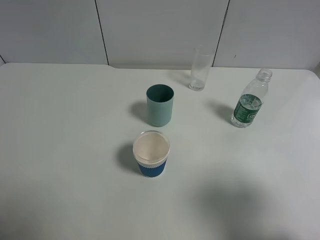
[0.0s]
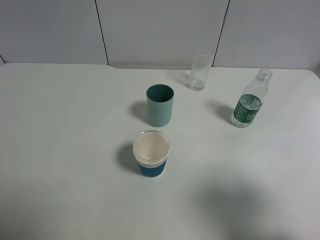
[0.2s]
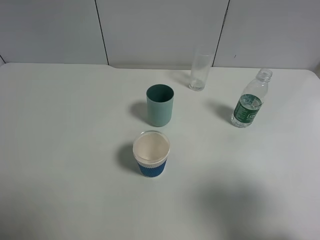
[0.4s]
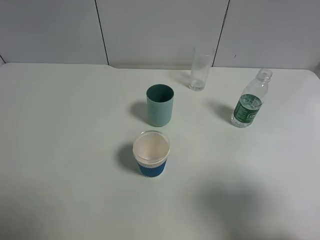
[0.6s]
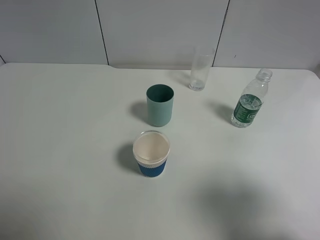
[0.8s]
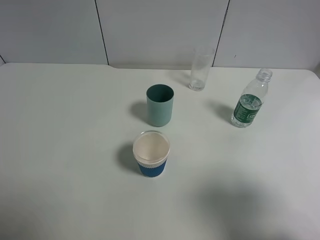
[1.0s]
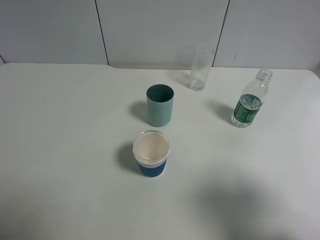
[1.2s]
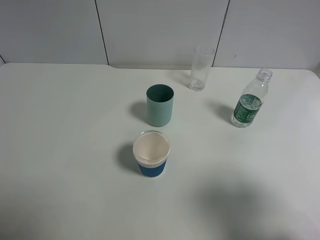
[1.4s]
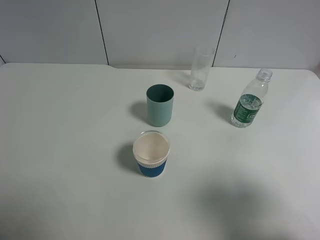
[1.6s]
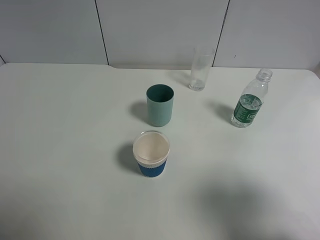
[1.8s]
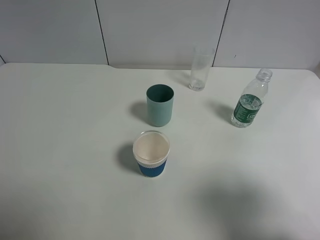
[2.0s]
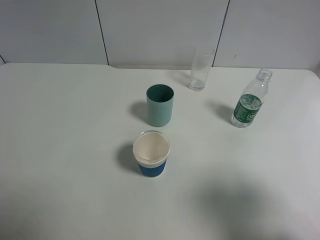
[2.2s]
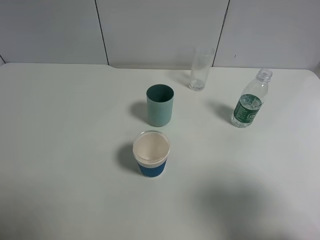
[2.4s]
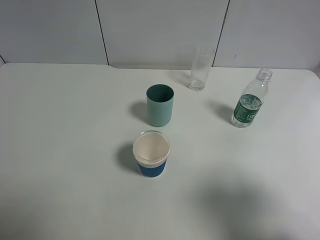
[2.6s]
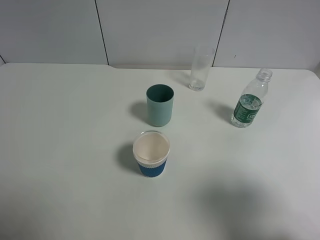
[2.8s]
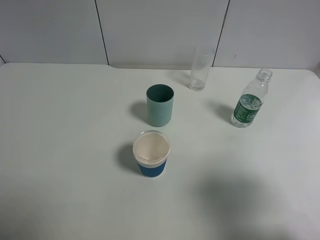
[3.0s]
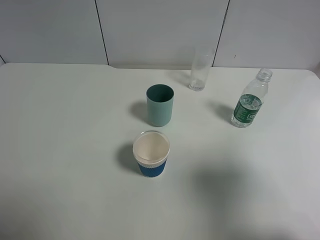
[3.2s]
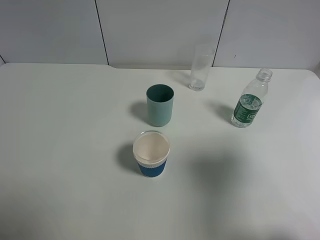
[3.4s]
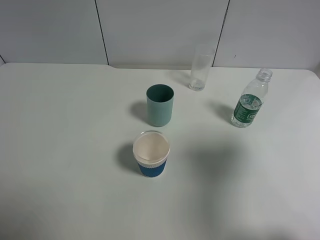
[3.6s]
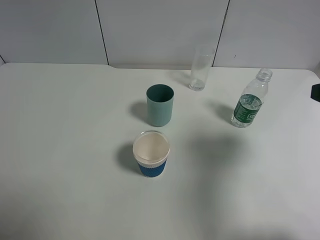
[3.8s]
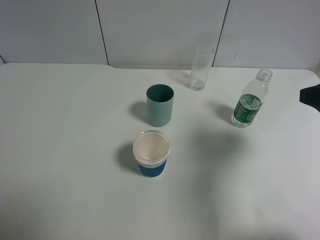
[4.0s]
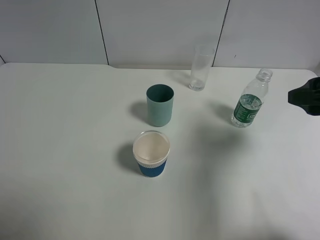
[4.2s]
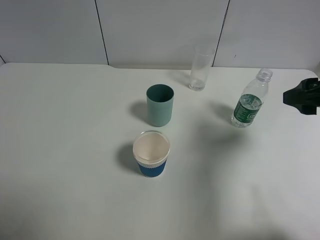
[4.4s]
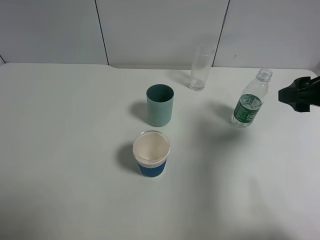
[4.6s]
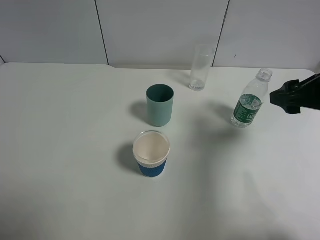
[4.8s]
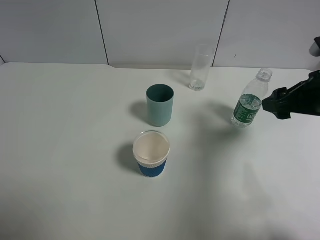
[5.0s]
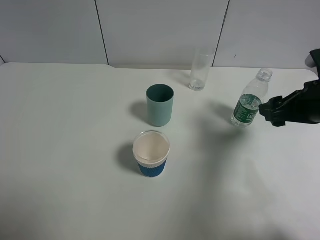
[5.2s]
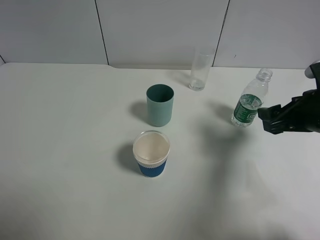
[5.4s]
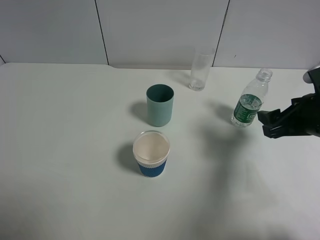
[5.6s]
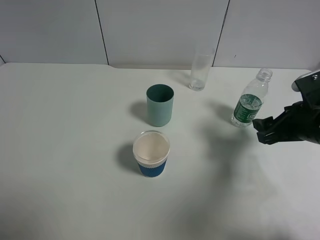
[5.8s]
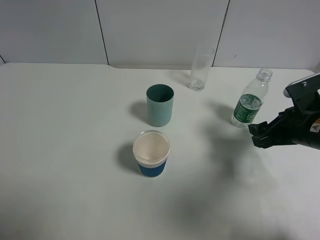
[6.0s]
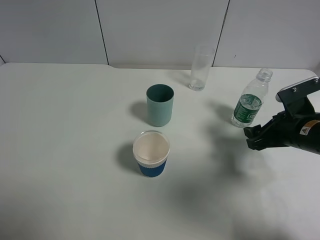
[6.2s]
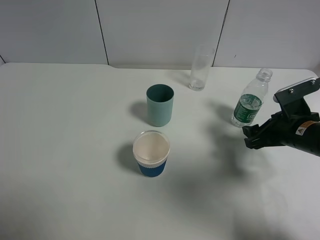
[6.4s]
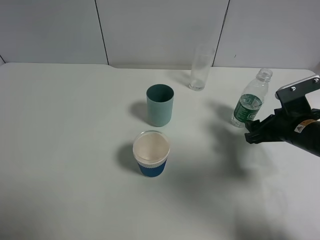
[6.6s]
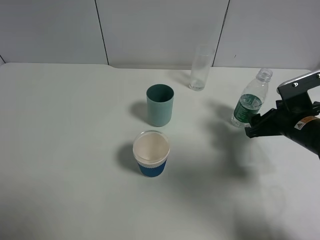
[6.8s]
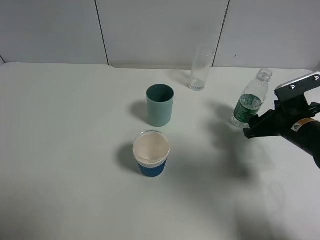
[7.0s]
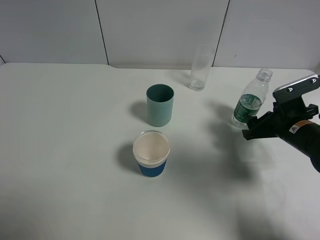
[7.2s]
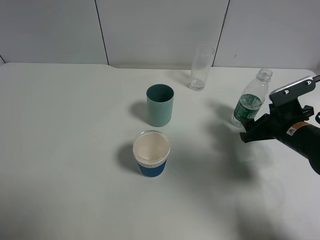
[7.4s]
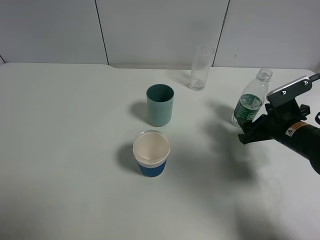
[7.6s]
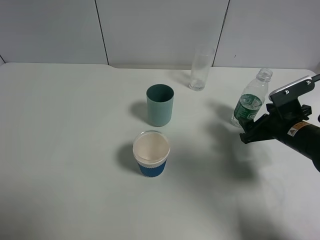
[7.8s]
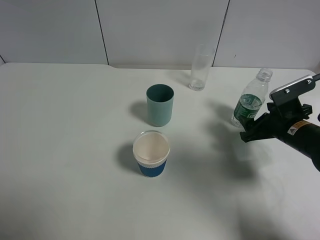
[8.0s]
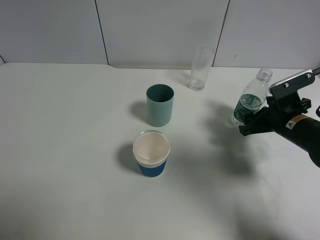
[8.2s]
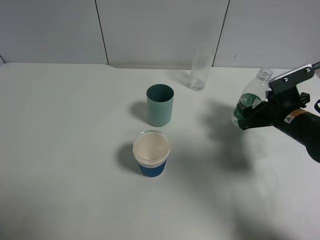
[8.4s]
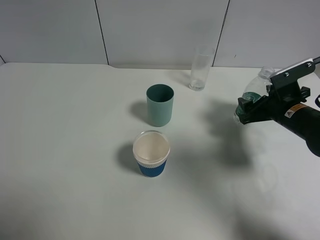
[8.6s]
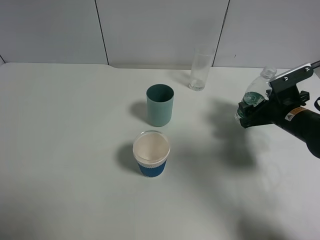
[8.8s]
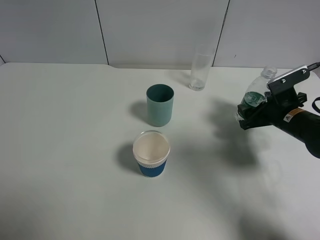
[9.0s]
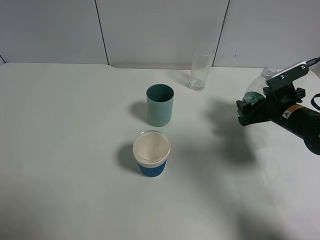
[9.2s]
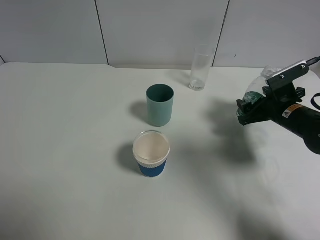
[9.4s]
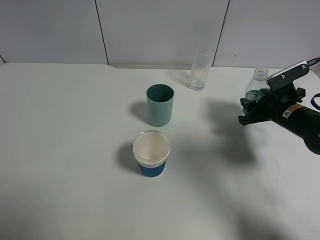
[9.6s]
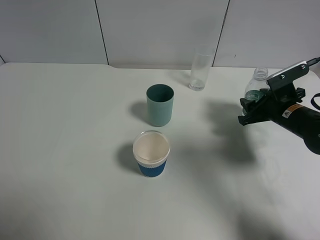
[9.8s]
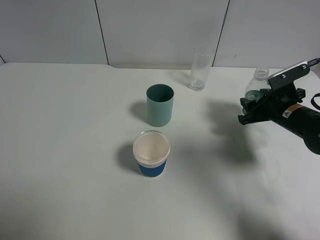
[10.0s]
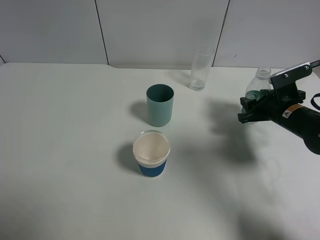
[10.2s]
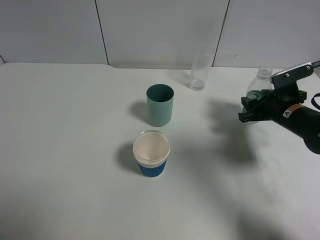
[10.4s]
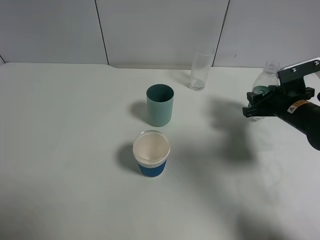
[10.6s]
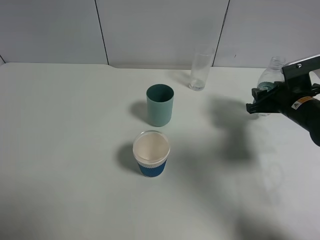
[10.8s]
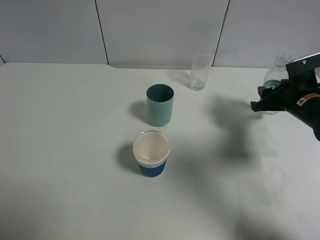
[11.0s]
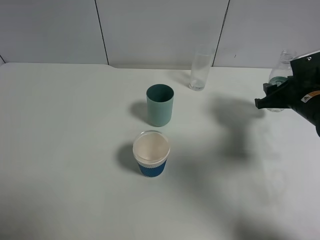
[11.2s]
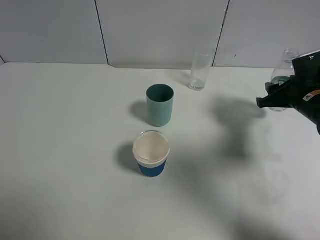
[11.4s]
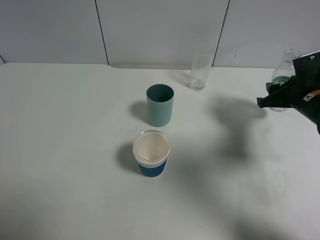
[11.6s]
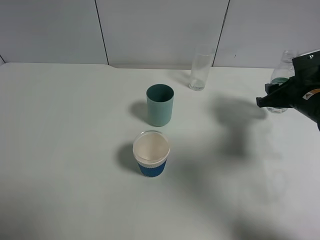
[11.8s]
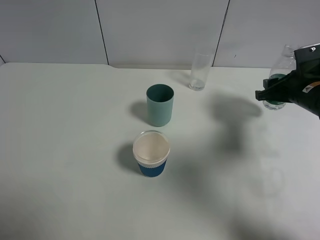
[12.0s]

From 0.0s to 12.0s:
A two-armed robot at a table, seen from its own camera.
Task of the whole recording: use a gripper to hold the bottle of the drink and pour it into a random cup.
Step, from 0.0s to 10.0s: Grasp the mineral water bottle with the right gripper.
From 0.0s to 1.6s: Neither gripper changes place.
From 3.0s to 4.4s: The right gripper is displaced forward by about 15 cm.
From 4.4s to 6.0s: The right gripper goes roughly 10 cm downward.
From 6.0s to 7.6s: The right gripper moves about 5 cm.
From 7.6s to 9.0s: The grippers move only a little.
From 9.0s to 10.4s: The right gripper closes its fingers.
From 10.4s to 12.0s: The right gripper heads upward, covering approximately 5 cm.

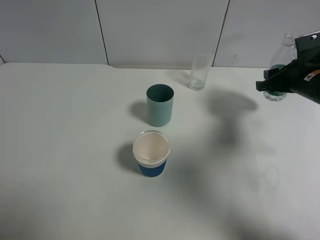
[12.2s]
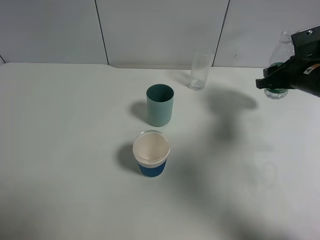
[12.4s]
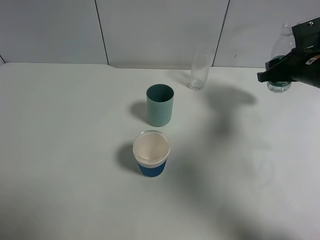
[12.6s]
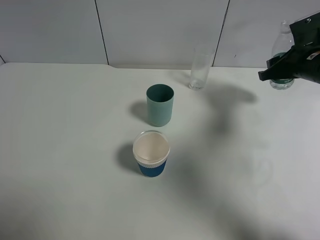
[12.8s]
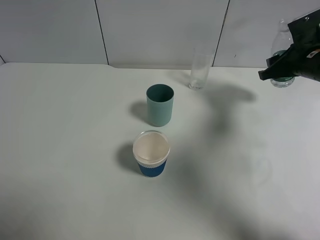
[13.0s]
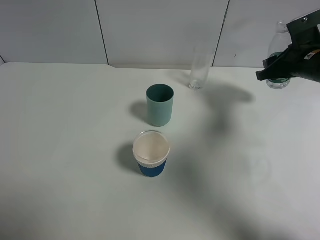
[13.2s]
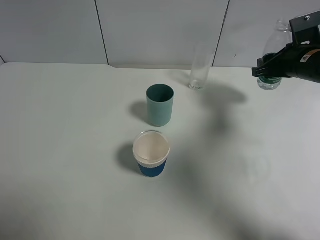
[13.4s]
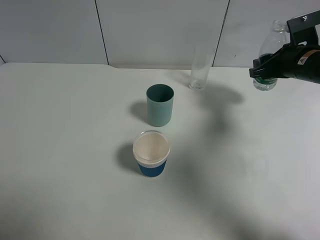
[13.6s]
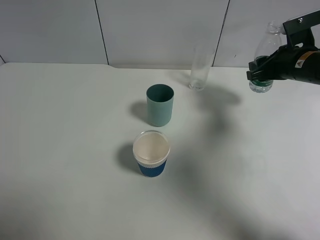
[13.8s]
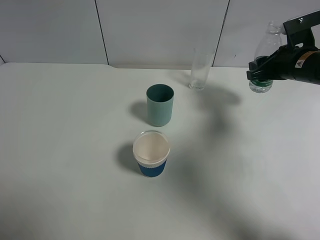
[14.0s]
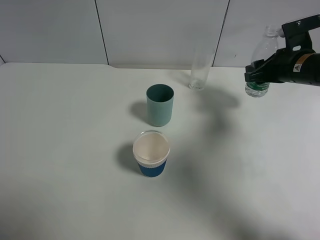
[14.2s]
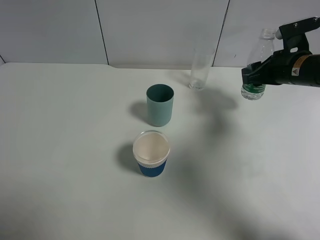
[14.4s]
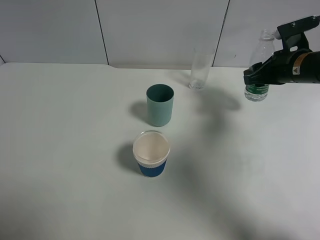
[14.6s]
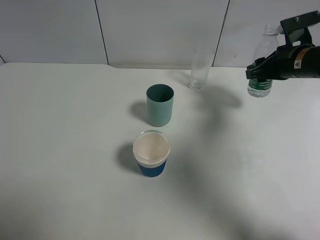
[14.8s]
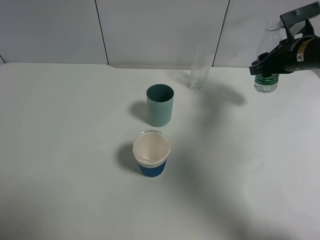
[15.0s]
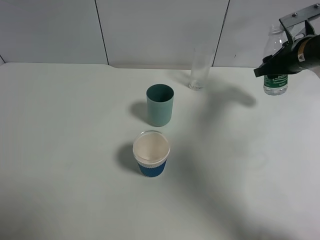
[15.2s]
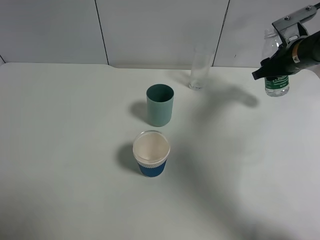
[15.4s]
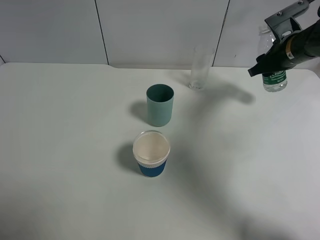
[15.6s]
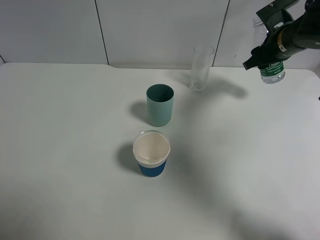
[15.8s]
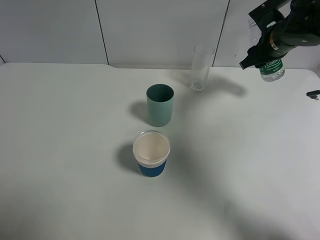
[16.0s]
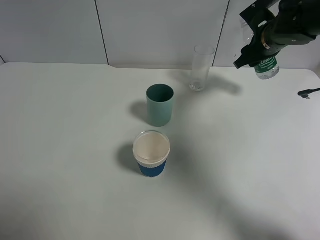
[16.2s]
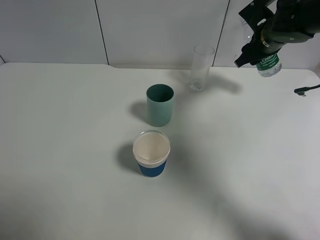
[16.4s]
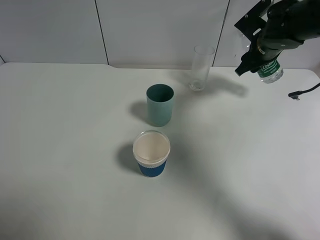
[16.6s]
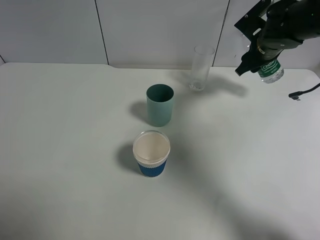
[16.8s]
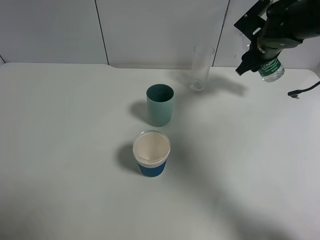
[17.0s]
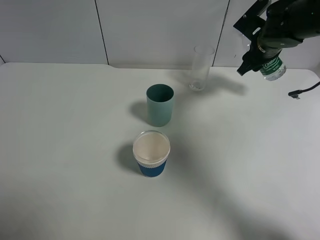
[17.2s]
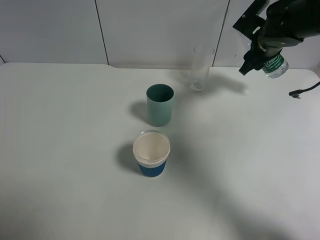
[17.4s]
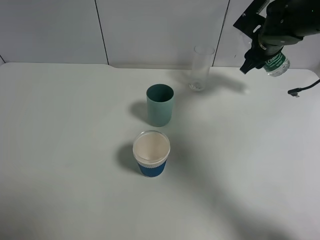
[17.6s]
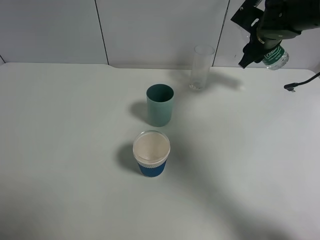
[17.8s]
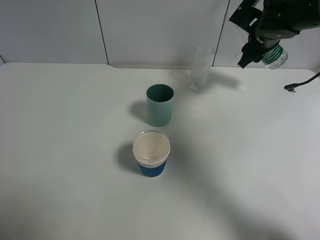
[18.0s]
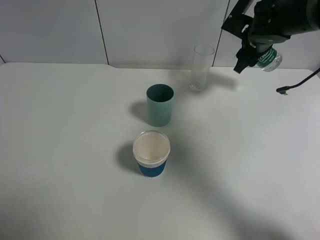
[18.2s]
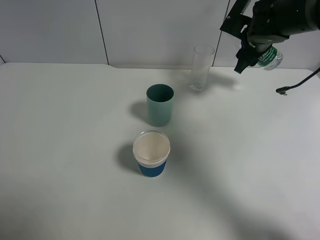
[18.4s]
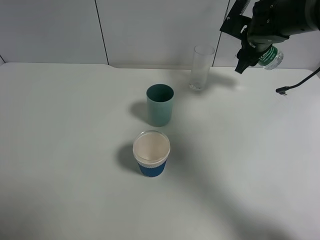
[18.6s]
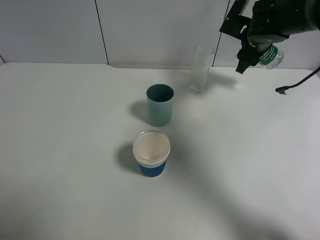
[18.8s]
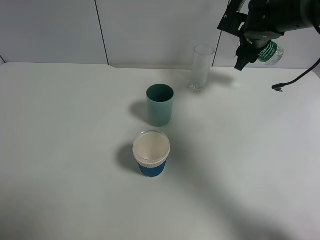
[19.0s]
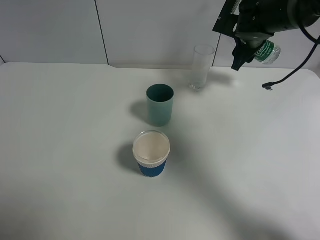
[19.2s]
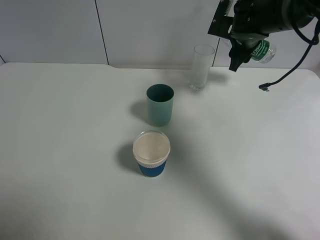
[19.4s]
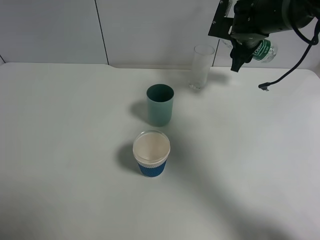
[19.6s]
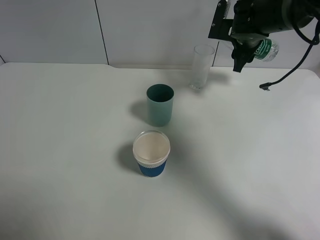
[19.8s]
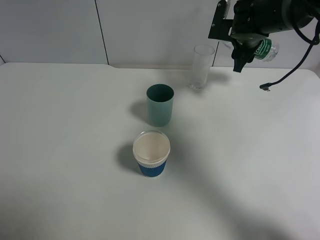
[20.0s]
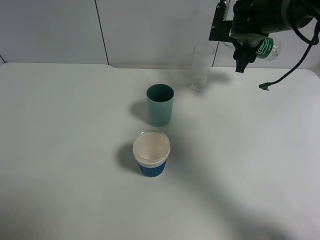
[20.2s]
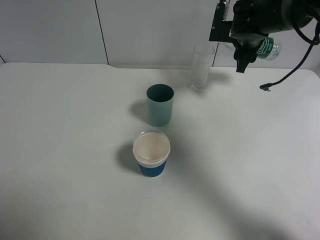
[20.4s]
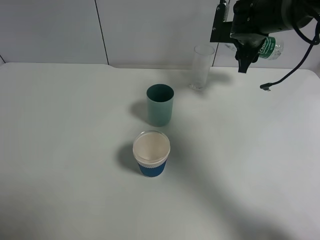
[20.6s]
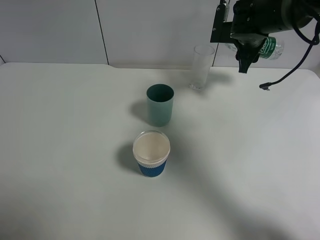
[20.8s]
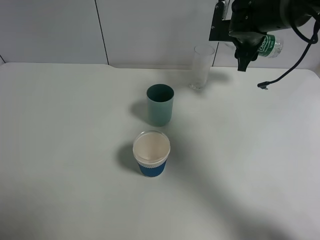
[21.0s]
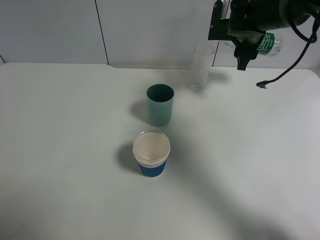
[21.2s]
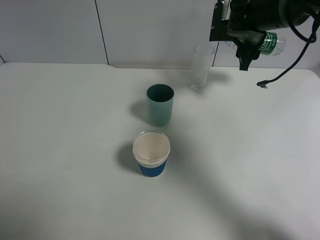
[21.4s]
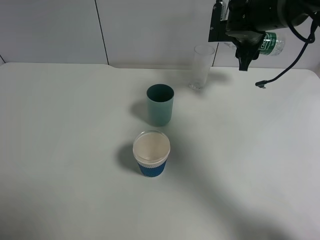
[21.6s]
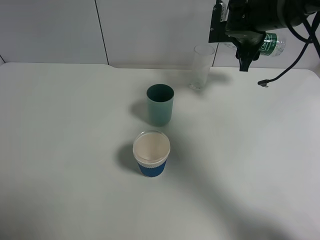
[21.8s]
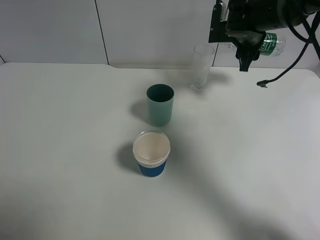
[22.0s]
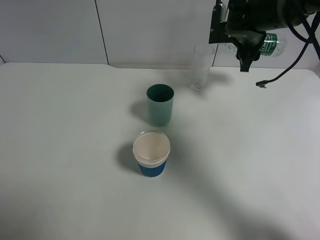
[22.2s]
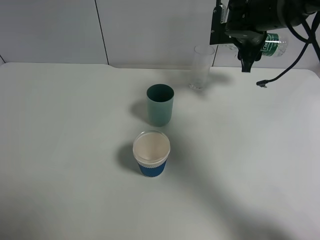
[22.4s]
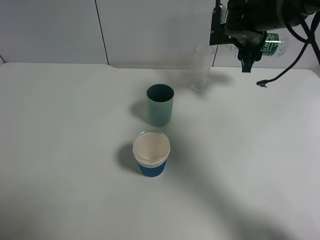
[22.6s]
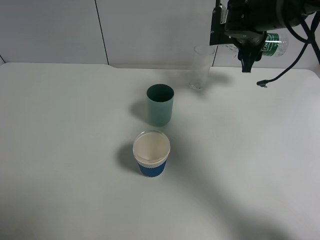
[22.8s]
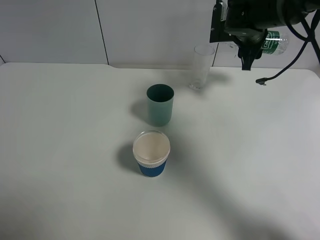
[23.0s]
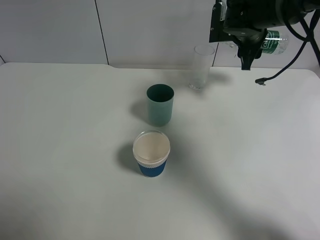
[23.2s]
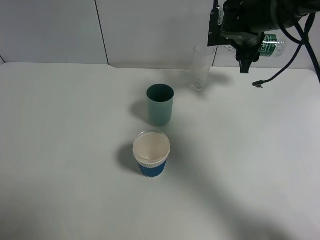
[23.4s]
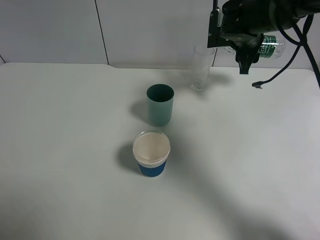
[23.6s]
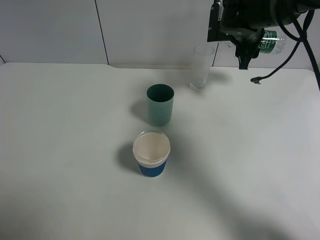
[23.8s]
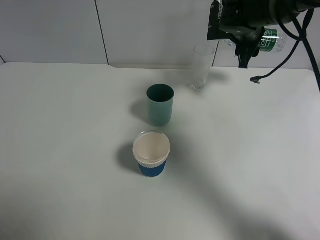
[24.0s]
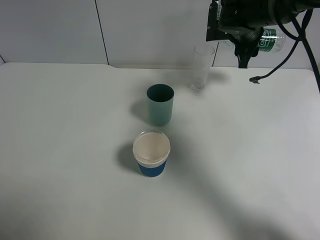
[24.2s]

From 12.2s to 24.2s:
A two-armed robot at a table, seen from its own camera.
Task of the whole recording: use a gripper to hold the bottle of the drink and pour it into a random cup.
From 12.2s to 15.2s: There are only small adjustments of the grippers.
From 15.2s to 16.6s: The right gripper is displaced to the left by about 5 cm.
From 16.6s to 18.2s: The grippers make only small movements.
From 18.2s to 19.8s: The grippers make only small movements.
From 19.8s to 22.6s: There are only small adjustments of the grippers.
From 22.6s to 24.2s: Both grippers stay about where they are.
